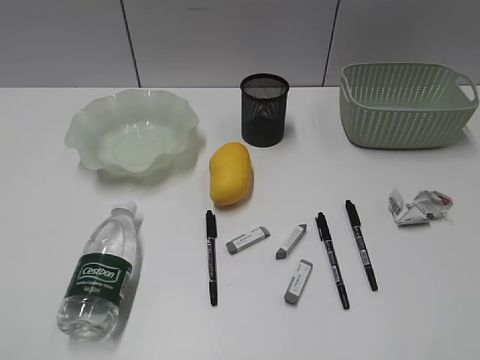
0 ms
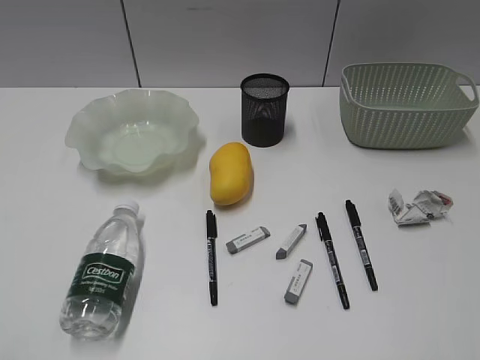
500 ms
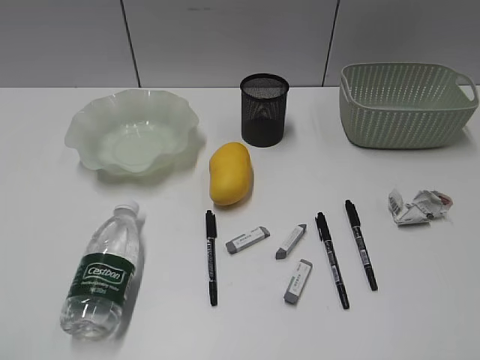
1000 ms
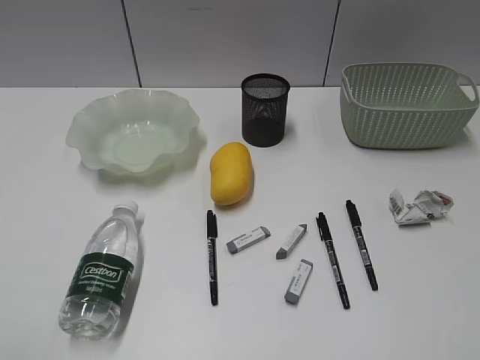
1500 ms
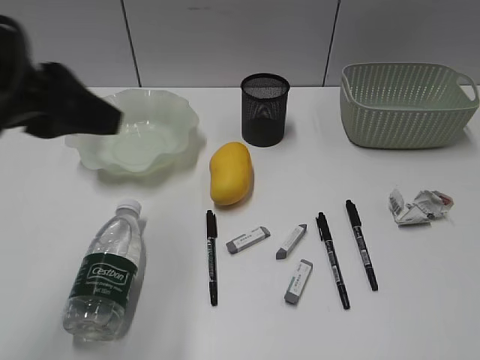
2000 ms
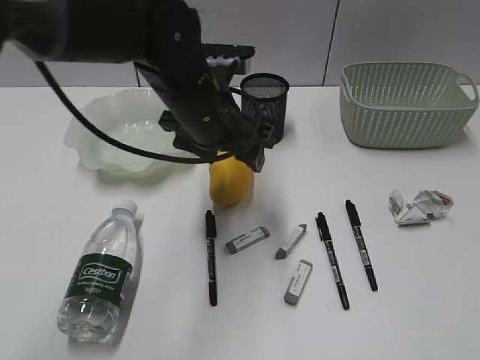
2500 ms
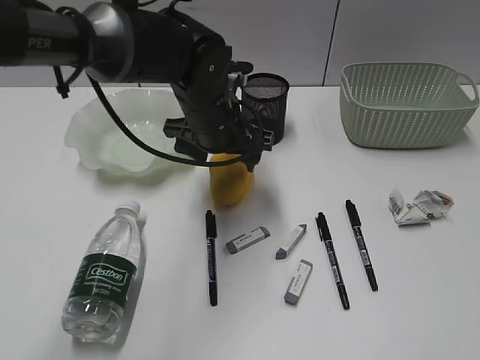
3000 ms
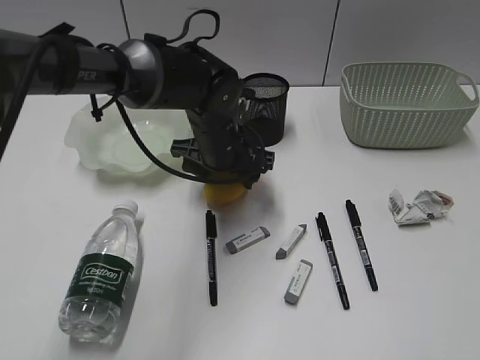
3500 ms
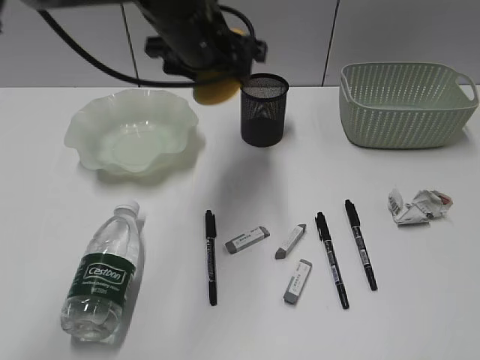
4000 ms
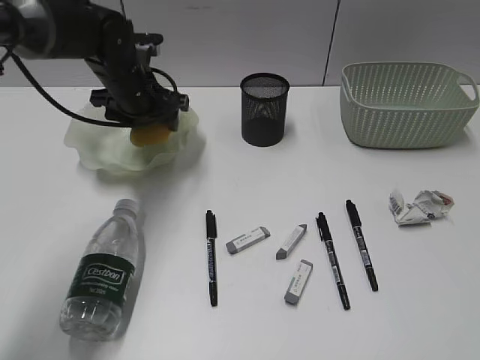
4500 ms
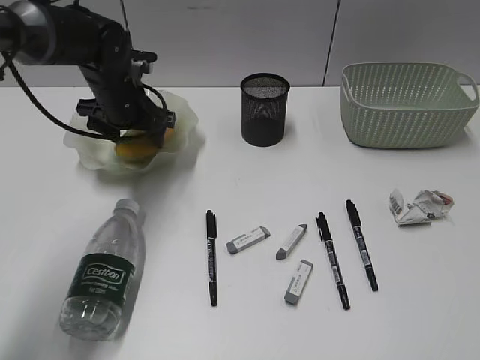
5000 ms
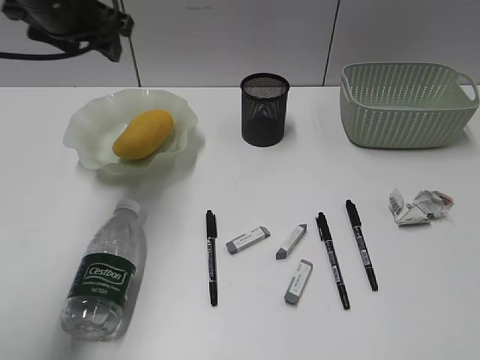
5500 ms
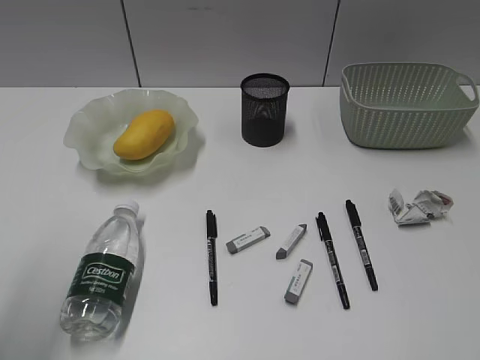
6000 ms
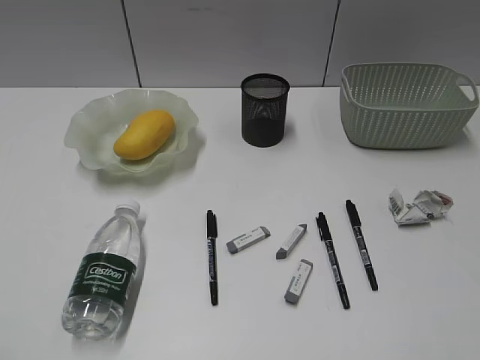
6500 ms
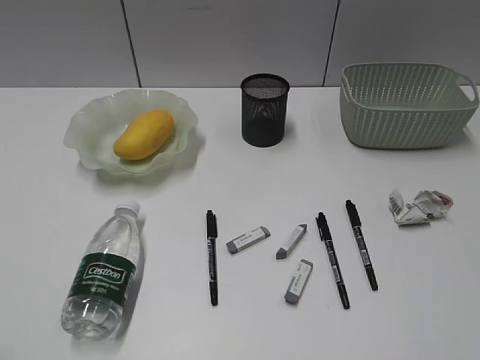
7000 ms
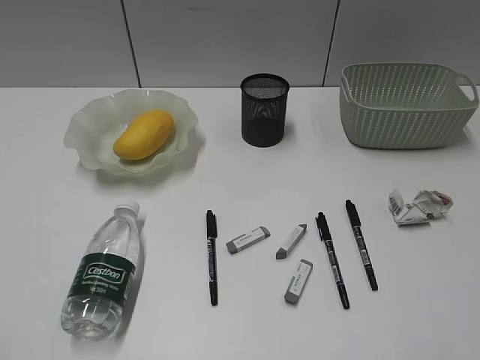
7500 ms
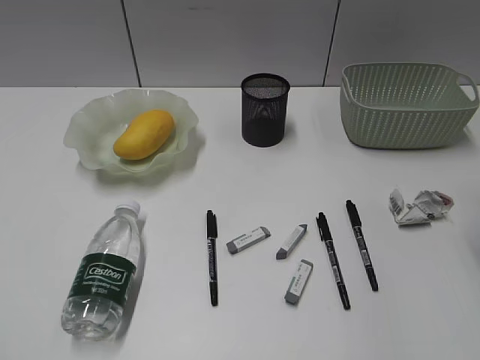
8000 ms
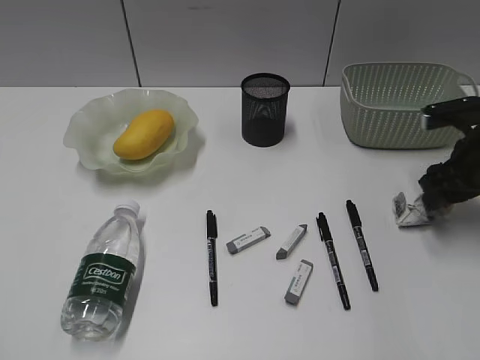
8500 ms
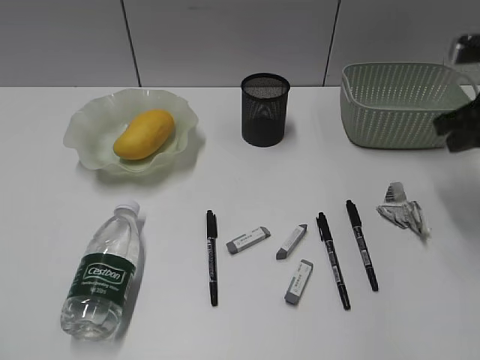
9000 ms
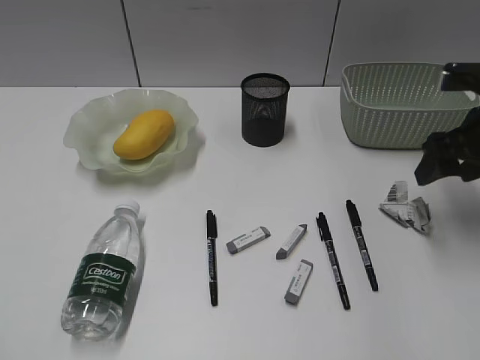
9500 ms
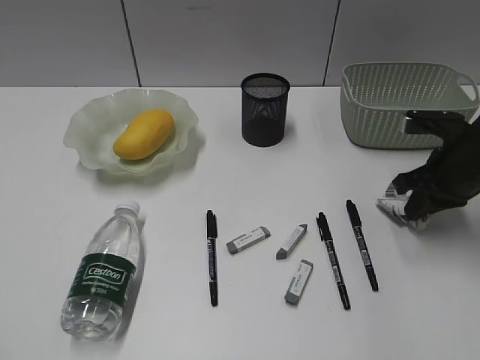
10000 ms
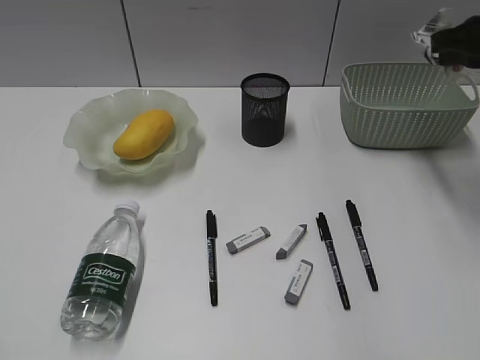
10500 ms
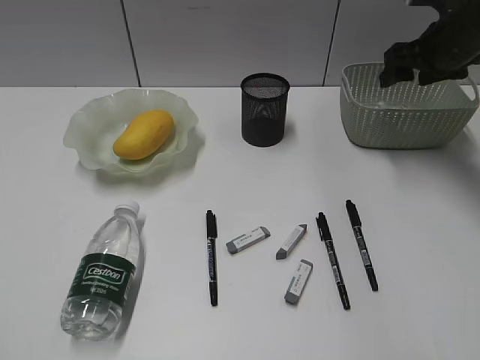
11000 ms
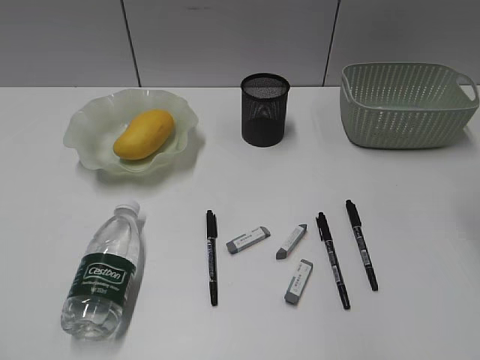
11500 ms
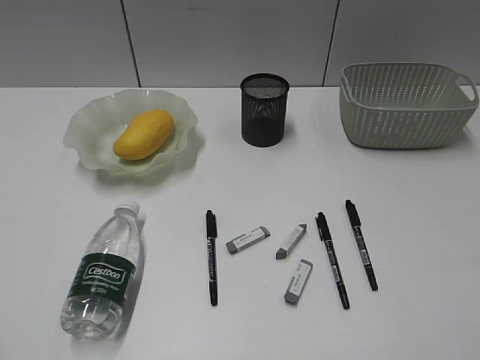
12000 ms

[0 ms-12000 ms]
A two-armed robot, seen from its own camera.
Step, 1500 ms to 3500 ms: Grasp the mango with left gripper.
Step, 4000 ms to 5000 ms: Place the mango in the plate with left gripper.
Step, 5500 ms to 10000 ms: Grasp the waste paper with right gripper.
Step, 10500 ms to 11000 ms: Place the waste paper in the basket with right gripper.
2000 ms to 4000 ms: The left gripper goes about 20 cm forward and to the right, goes downward and returns, approximately 20 cm each way, and opens its fingers.
4000 ms to 6000 ms: The left gripper heads backward and to the left, covering about 35 cm.
6000 ms to 8000 ms: The left gripper is displaced backward by about 15 cm.
8000 ms to 10000 ms: The right gripper moves up and down over approximately 10 cm, changing direction 2 times, and closes up.
10000 ms to 12000 ms: The right gripper moves backward and upward, roughly 30 cm, and opens its fingers.

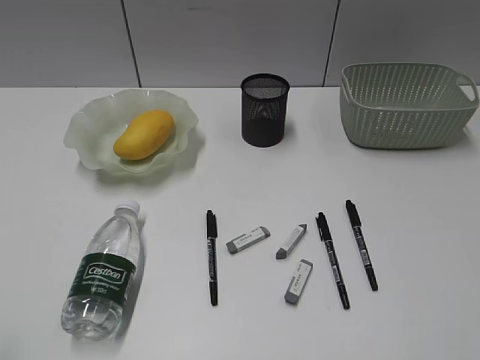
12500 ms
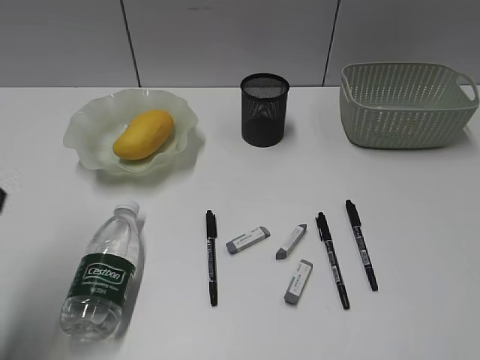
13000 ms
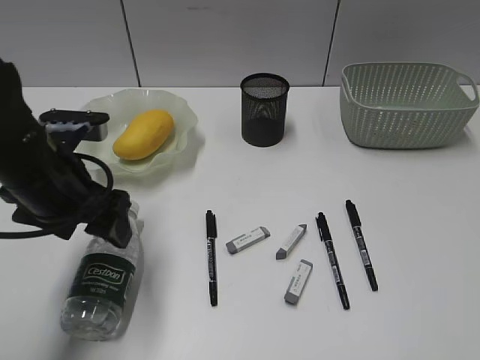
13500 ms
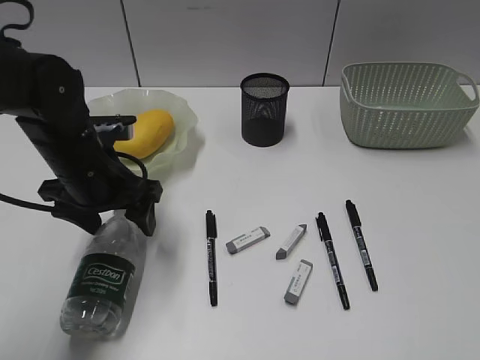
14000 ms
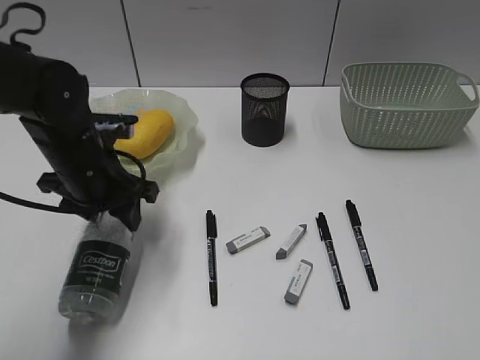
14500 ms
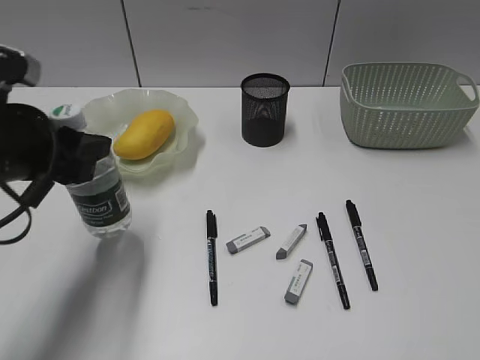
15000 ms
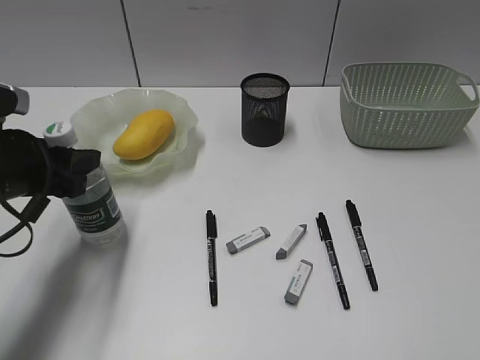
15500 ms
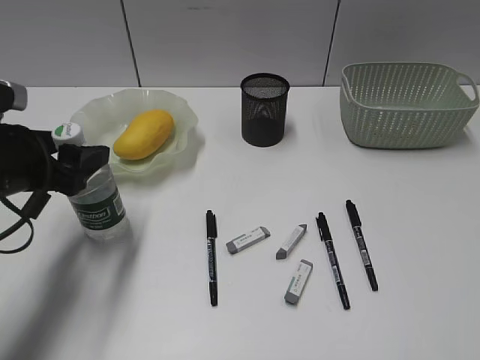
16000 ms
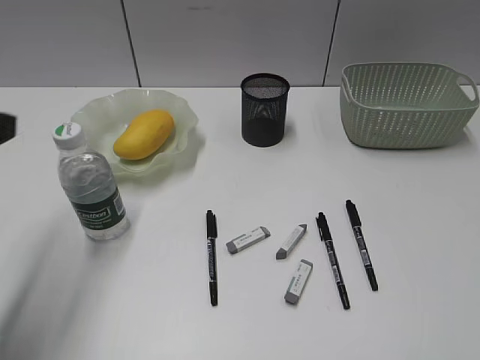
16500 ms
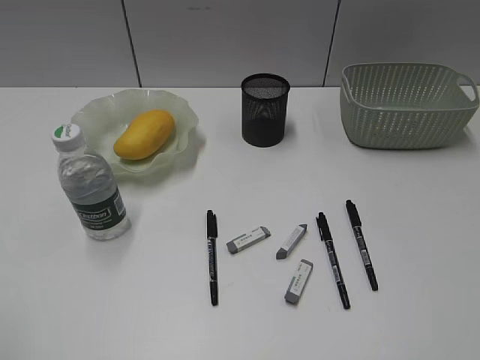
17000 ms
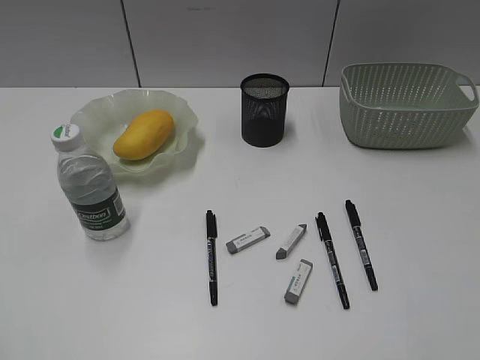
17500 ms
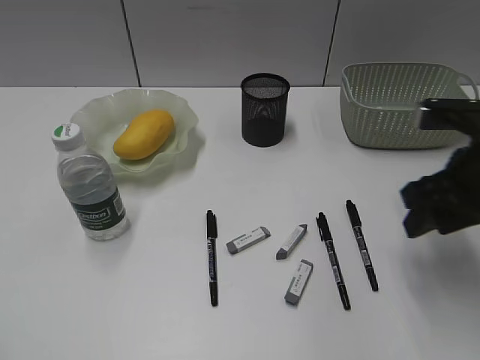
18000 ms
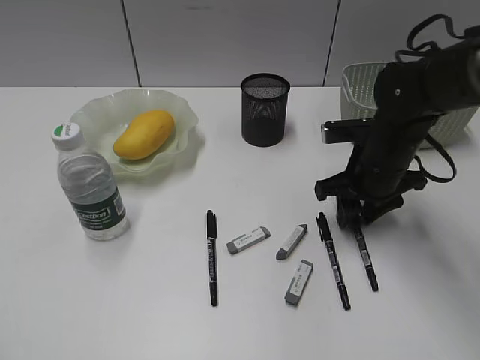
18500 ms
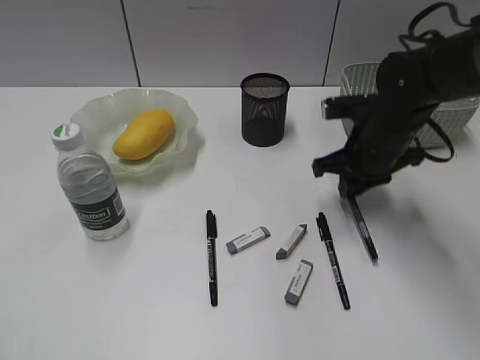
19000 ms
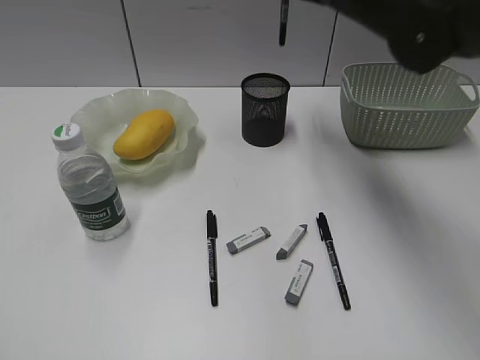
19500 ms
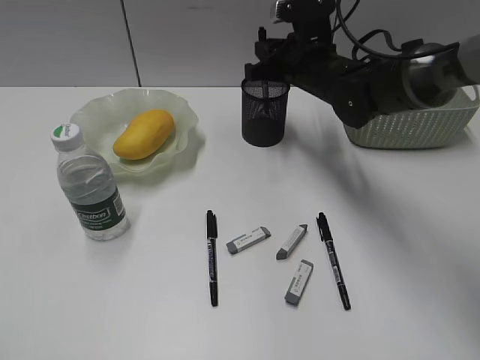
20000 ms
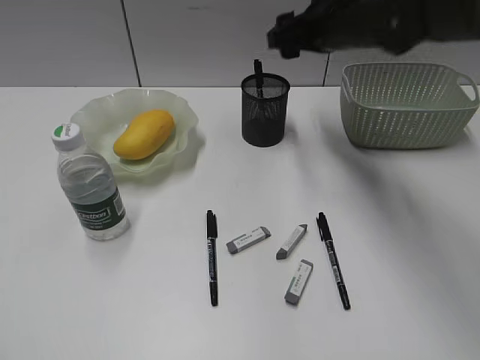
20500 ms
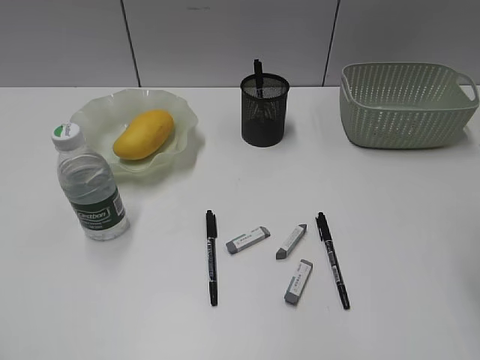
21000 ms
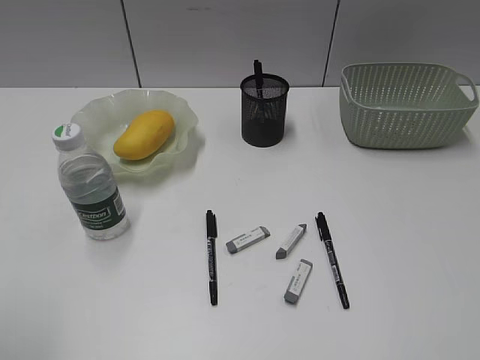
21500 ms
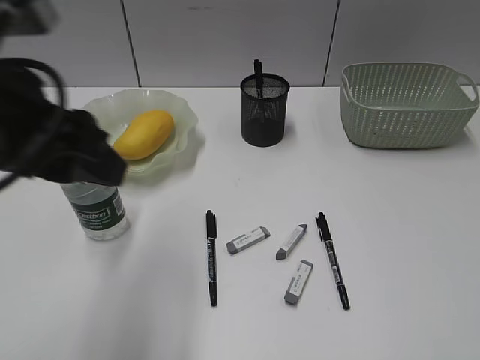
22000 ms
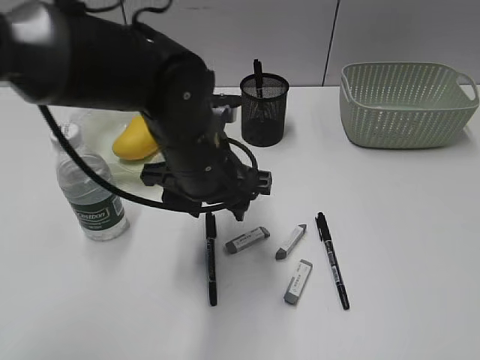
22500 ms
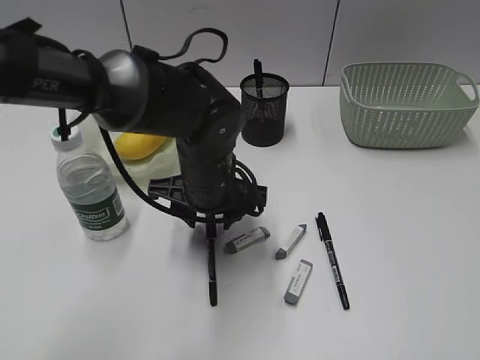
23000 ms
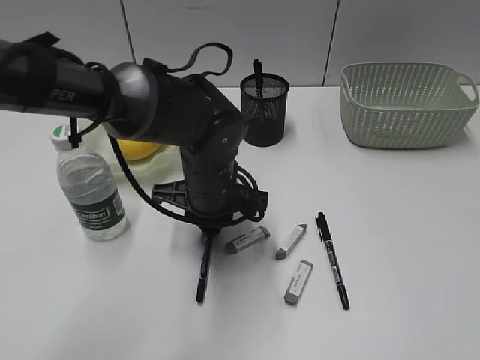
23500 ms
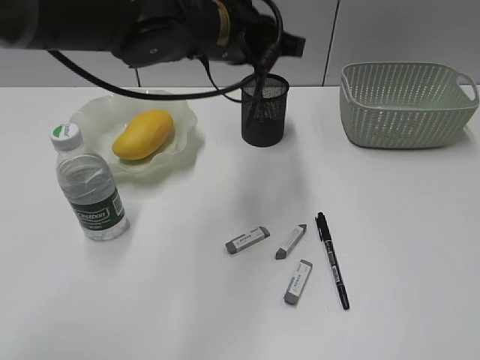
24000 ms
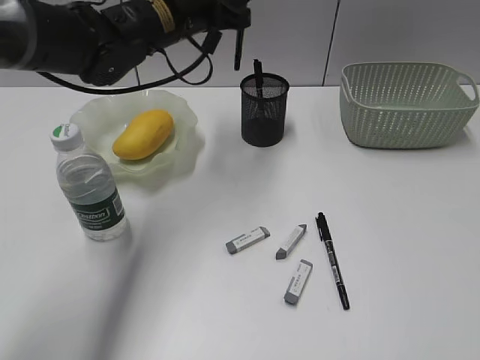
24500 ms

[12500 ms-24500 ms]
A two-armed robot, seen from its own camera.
Step, 14500 ms to 16000 ms: Stand the bottle with left gripper.
Step, 16500 ms to 18500 ms: Grasp the black pen with right gripper.
Step, 19000 ms to 20000 ms: Place the black pen in pen holder with right gripper.
Step, 20500 ms to 23500 ms: Grasp the black pen with left gripper.
12500 ms to 14500 ms: The left gripper goes some 35 cm forward, to the right and downward, and opens and closes again.
14500 ms to 16500 ms: The left gripper shifts about 20 cm backward, upward and to the left.
16500 ms to 18500 ms: The right gripper shifts approximately 40 cm forward and downward, while the left gripper is displaced backward by about 20 cm.
18500 ms to 20500 ms: The right gripper swings up and down, roughly 15 cm each way, with 2 reversals, and closes, then opens again.
20500 ms to 22500 ms: The right gripper travels backward and to the right by some 50 cm. Meanwhile the left gripper heads to the right and forward, covering some 40 cm.
22500 ms to 24500 ms: The left gripper shifts about 15 cm forward and upward, and closes up.

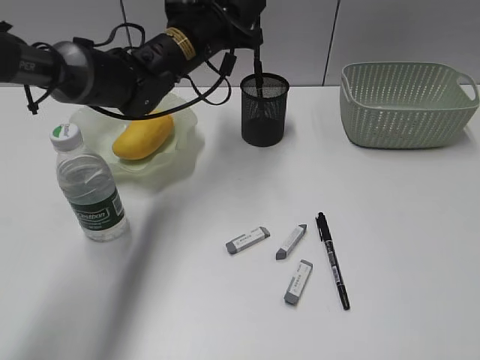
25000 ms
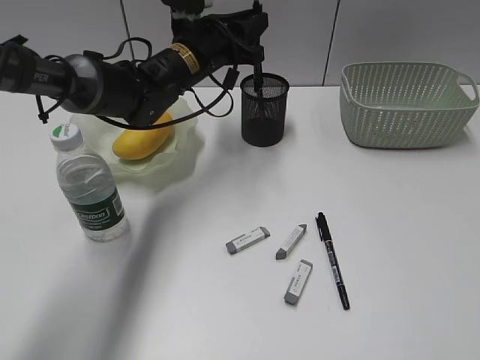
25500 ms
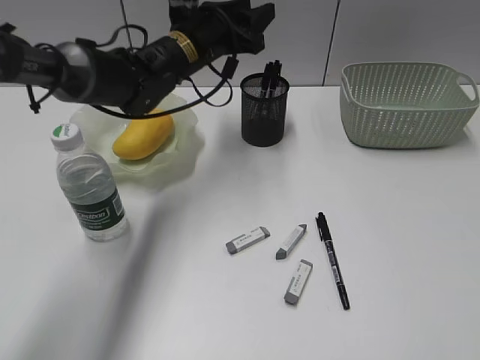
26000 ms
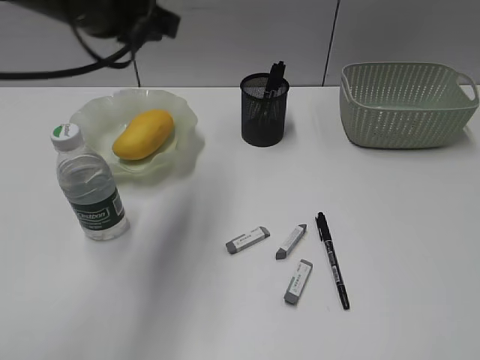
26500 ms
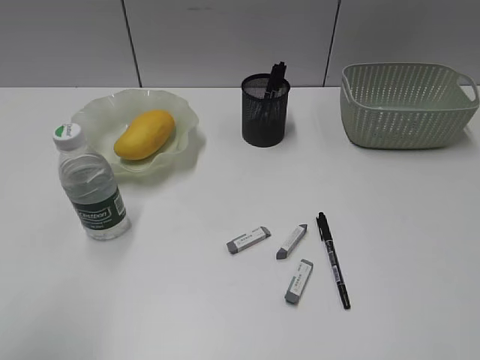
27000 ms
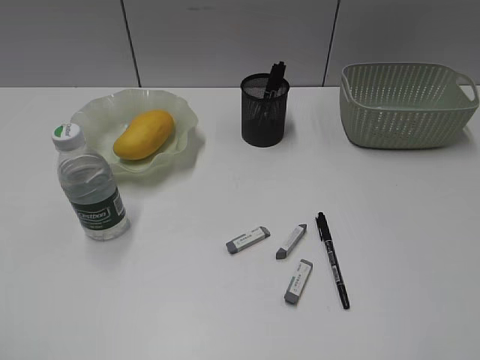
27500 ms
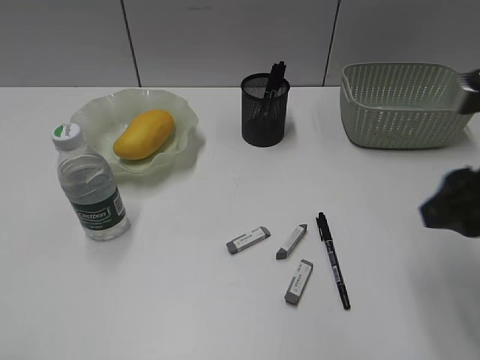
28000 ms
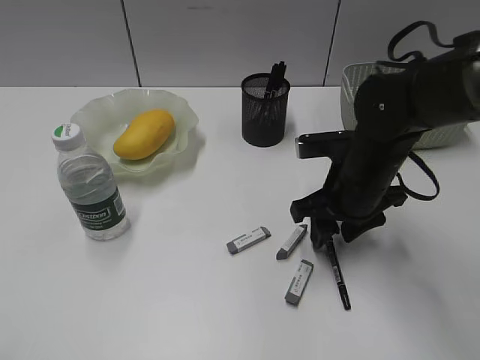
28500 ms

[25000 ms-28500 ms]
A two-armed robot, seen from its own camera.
25000 ms to 27000 ms: The left gripper moves backward and to the left, roughly 40 cm, and opens up.
27000 ms to 28500 ms: The right gripper moves forward, to the left and downward, approximately 40 cm; the left gripper heads backward, covering about 5 cm.
